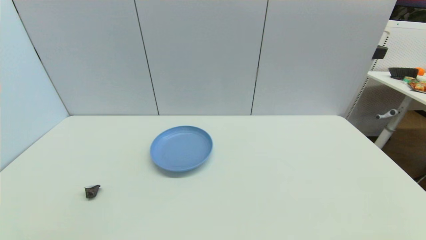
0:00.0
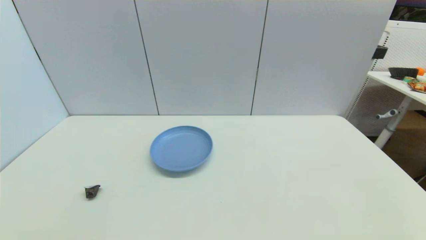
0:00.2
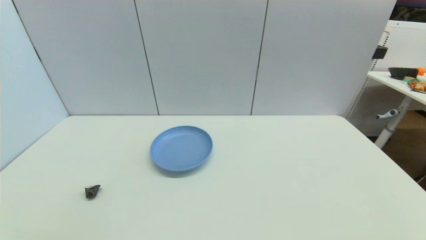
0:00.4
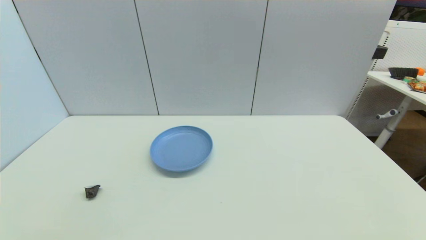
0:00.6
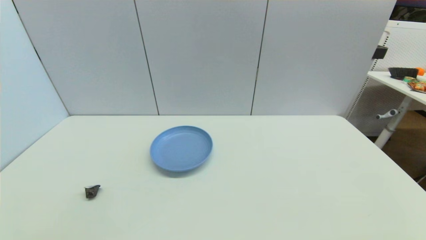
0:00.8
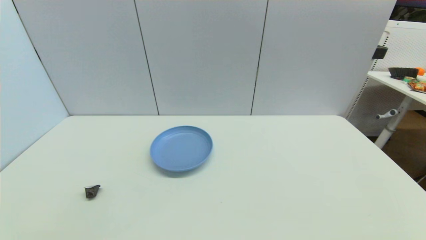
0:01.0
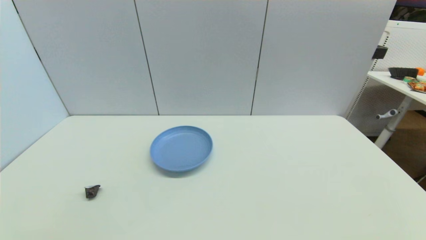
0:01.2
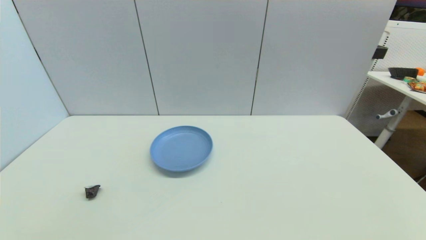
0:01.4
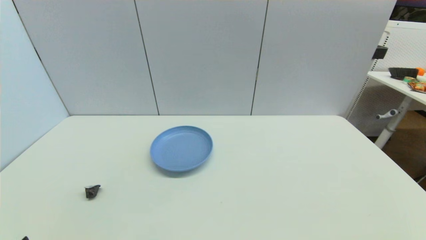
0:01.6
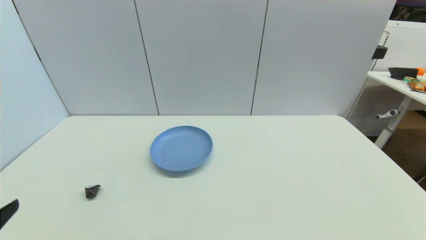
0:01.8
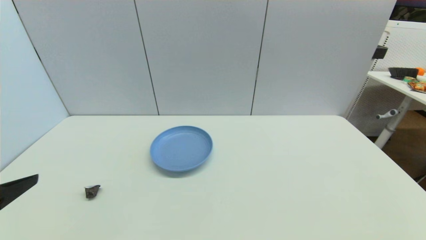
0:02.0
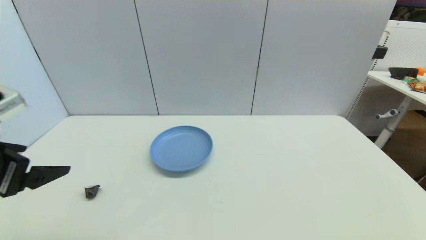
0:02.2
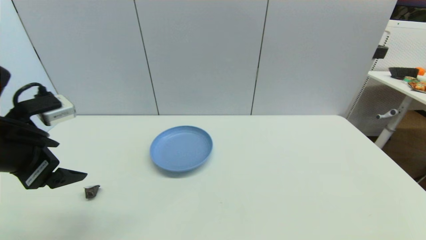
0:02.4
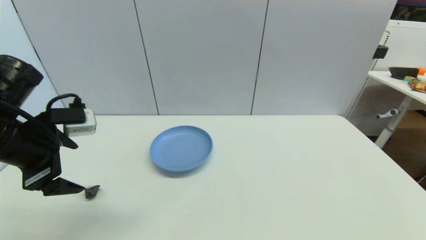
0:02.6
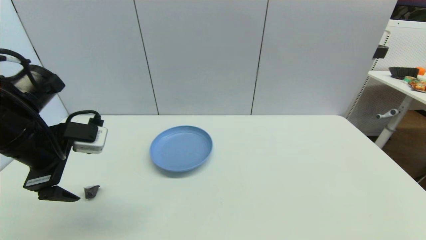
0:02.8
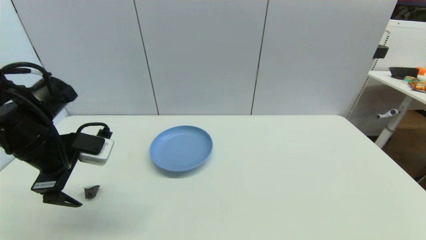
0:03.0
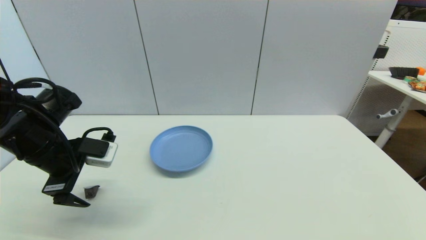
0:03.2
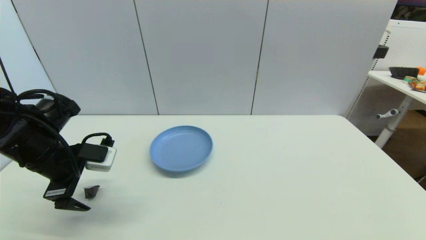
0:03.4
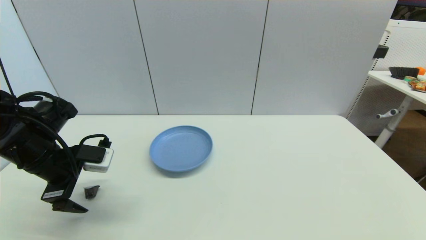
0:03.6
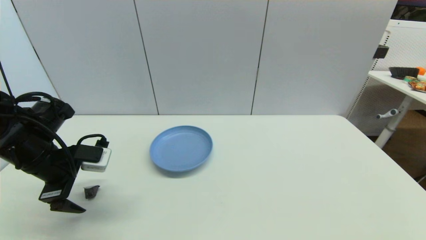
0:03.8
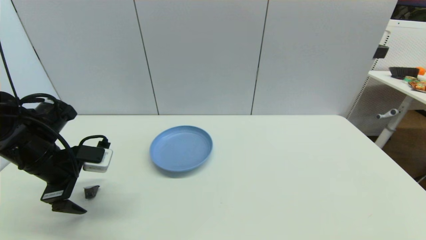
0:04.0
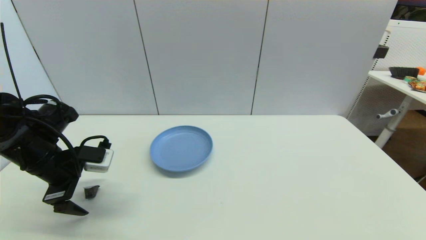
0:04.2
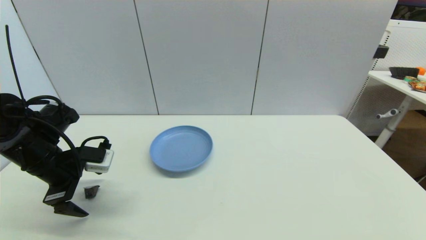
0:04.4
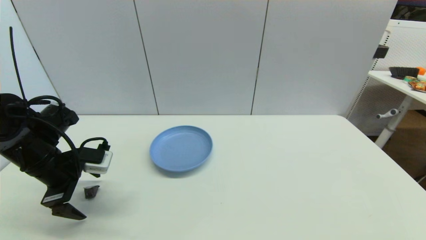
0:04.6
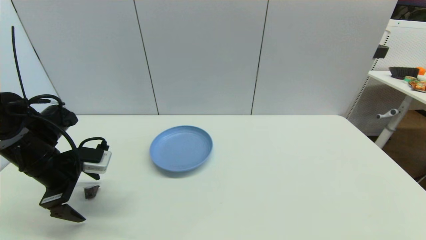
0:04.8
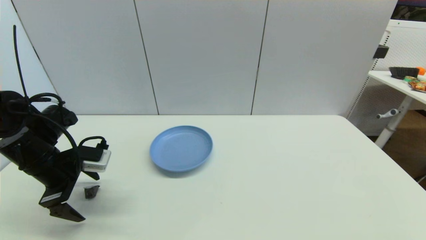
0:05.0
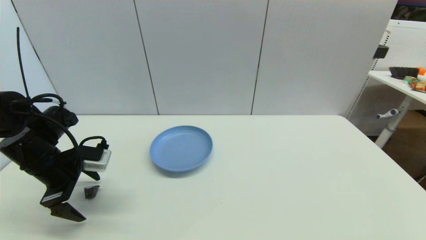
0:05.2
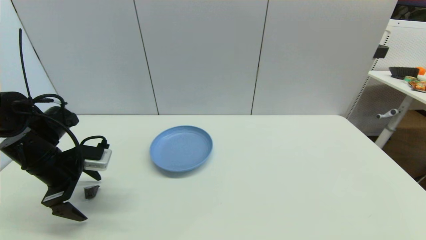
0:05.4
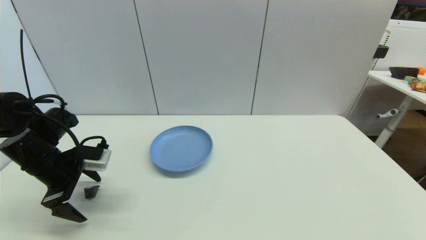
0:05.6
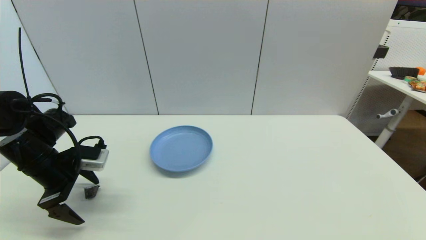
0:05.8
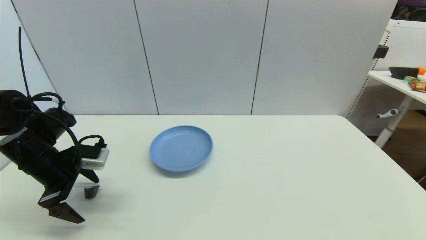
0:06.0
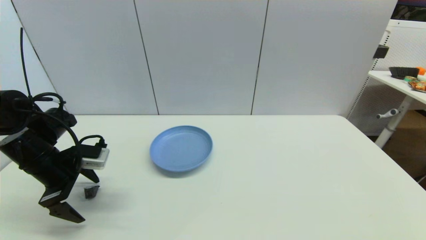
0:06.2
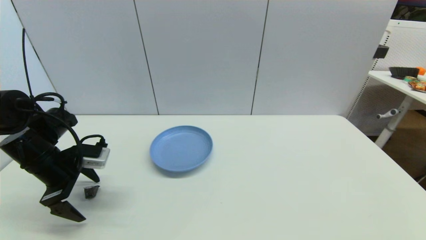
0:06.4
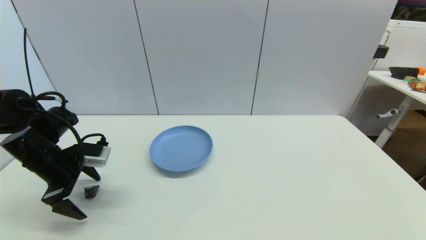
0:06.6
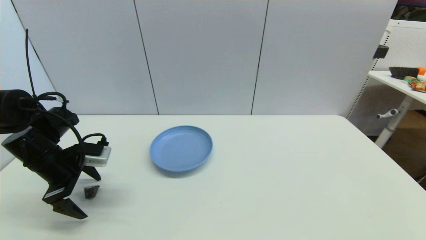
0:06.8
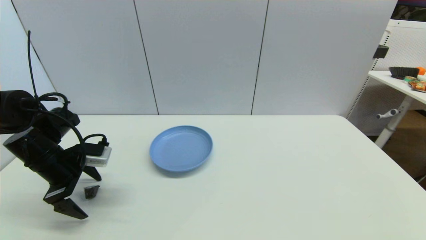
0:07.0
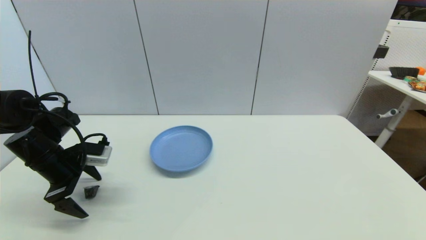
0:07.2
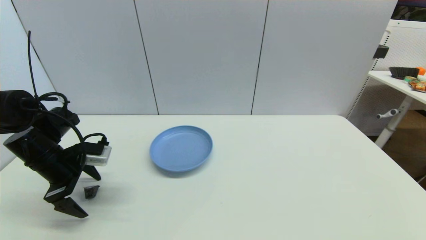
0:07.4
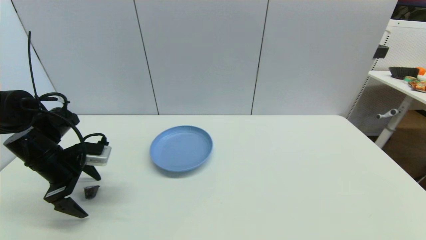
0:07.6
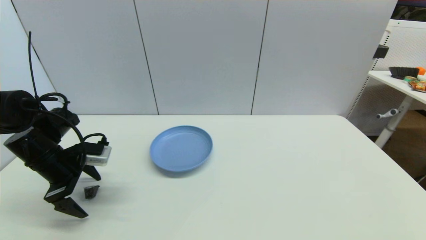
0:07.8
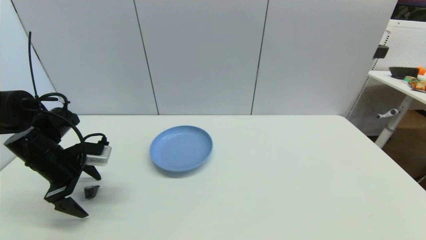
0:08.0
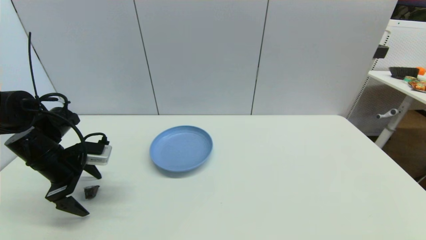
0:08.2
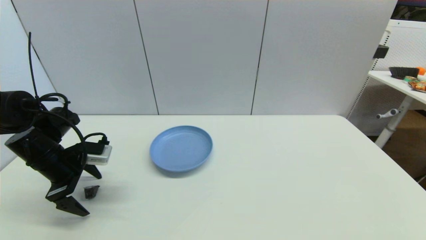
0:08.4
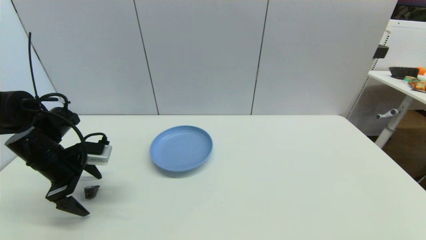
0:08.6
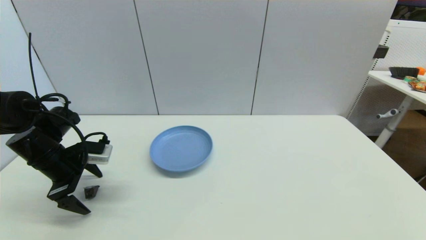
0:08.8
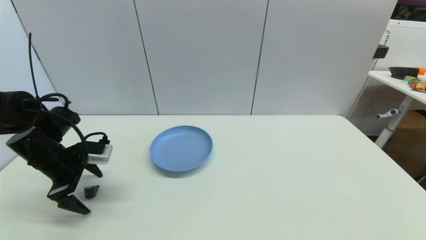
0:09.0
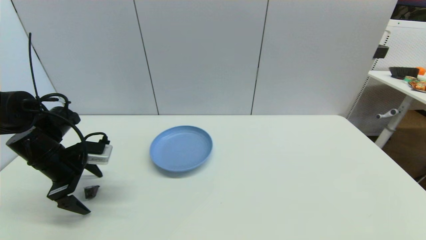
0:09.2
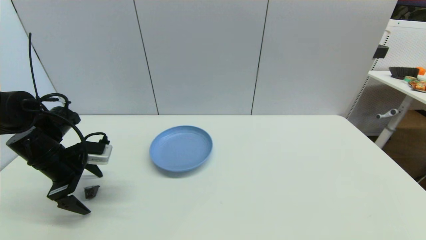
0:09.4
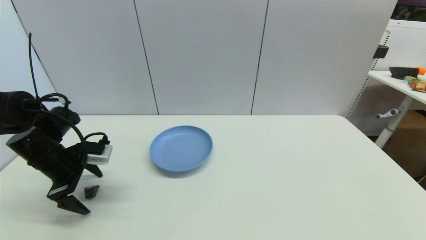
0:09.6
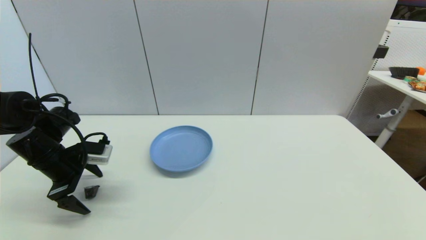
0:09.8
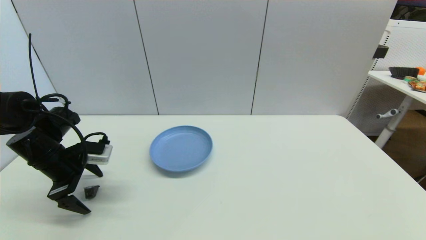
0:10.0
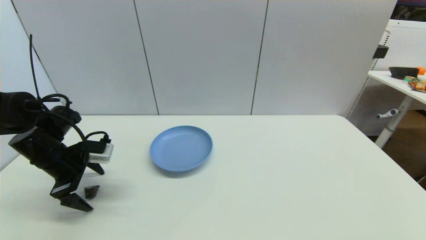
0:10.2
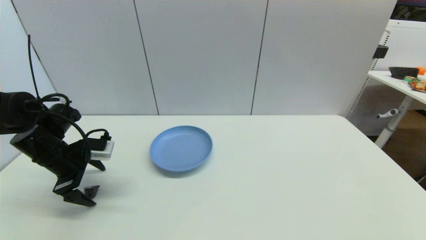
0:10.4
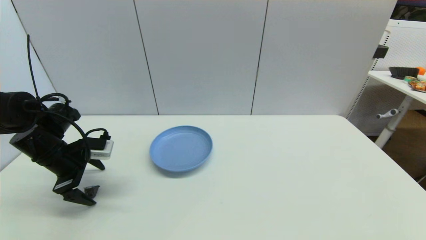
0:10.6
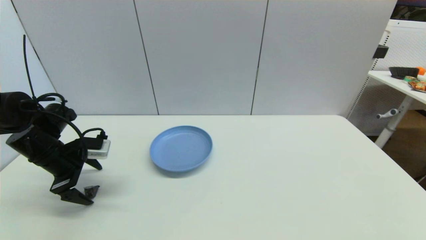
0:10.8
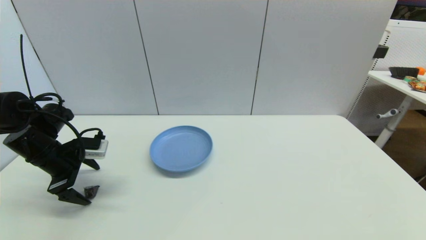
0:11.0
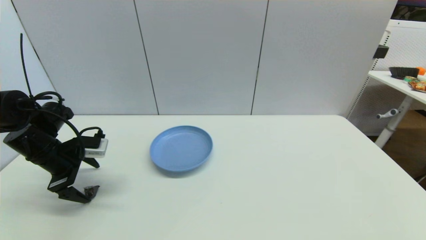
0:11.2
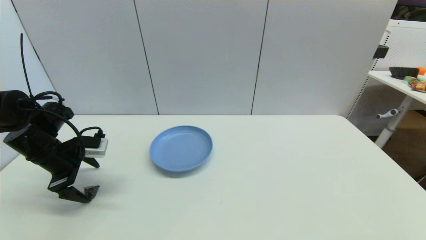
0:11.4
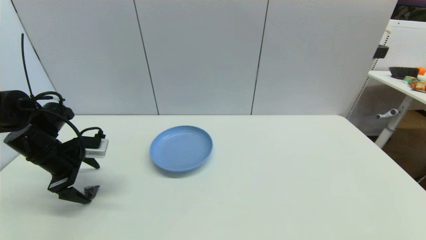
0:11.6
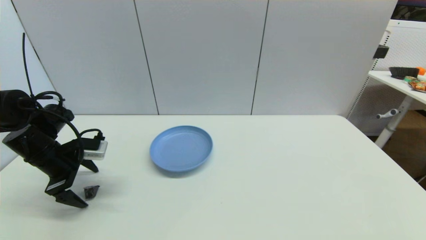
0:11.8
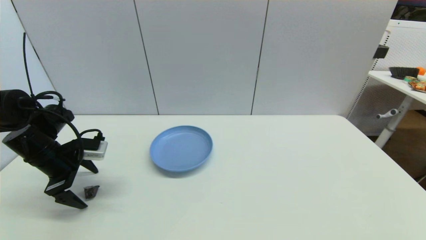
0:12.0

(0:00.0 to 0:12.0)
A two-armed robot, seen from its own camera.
0:01.6 - 0:03.0: The left gripper heads forward, covering some 25 cm.
0:03.0 - 0:04.4: The left gripper is displaced downward by approximately 5 cm.
0:04.4 - 0:07.6: There are only small adjustments of the grippers.
0:07.6 - 0:09.0: The two grippers keep their place.
0:09.0 - 0:10.4: The two grippers keep their place.
0:10.4 - 0:12.0: There are only small adjustments of the grippers.

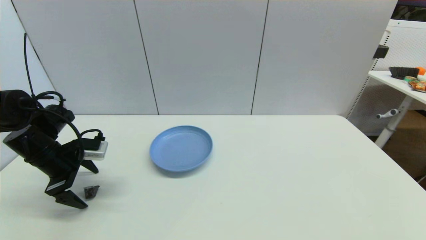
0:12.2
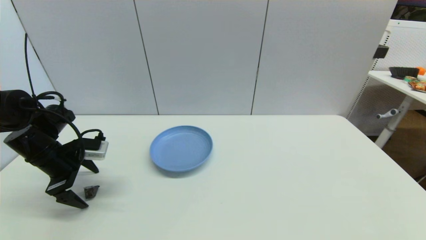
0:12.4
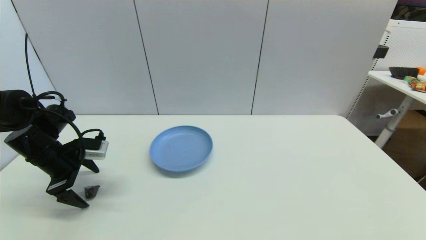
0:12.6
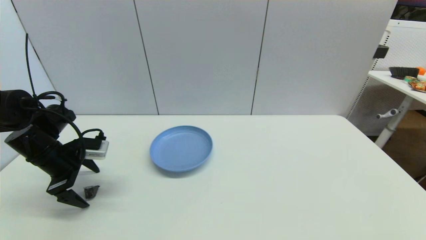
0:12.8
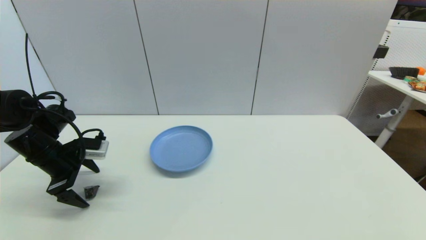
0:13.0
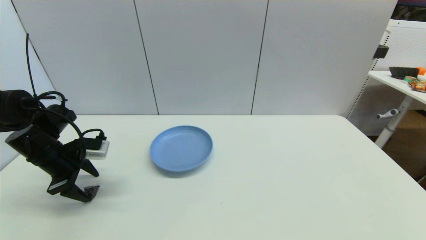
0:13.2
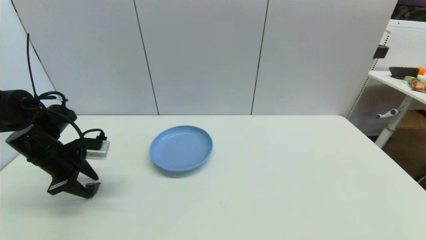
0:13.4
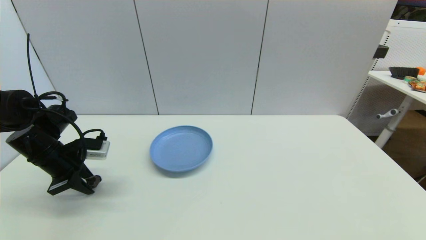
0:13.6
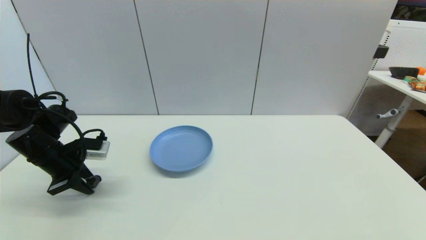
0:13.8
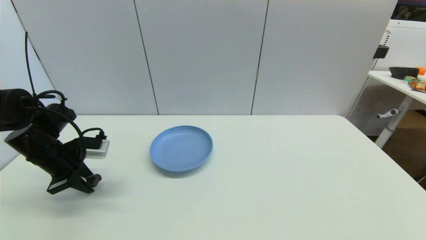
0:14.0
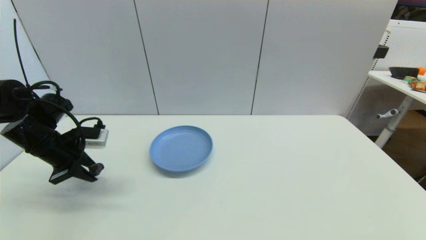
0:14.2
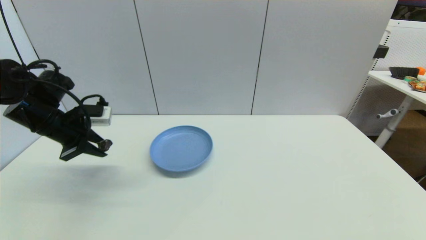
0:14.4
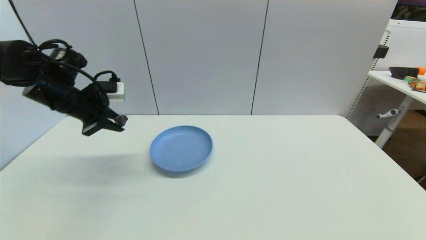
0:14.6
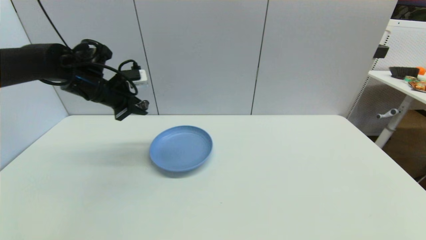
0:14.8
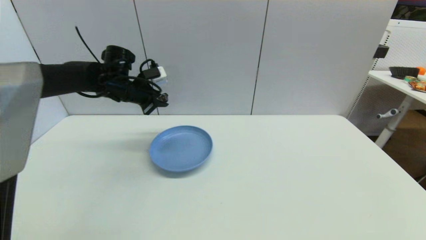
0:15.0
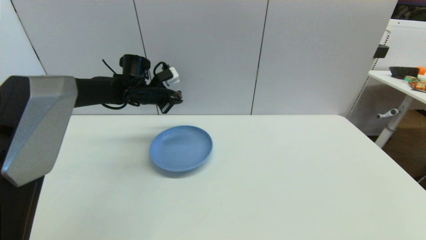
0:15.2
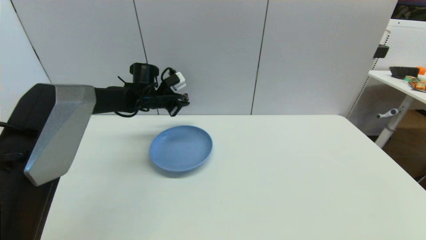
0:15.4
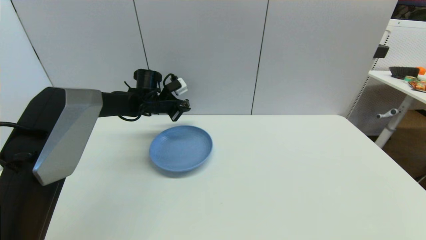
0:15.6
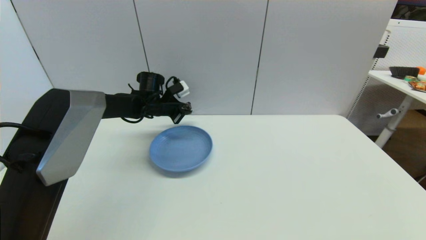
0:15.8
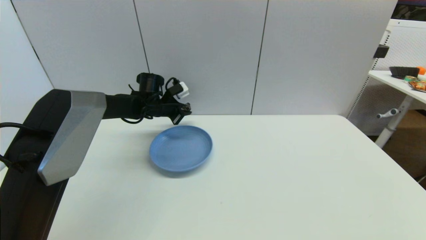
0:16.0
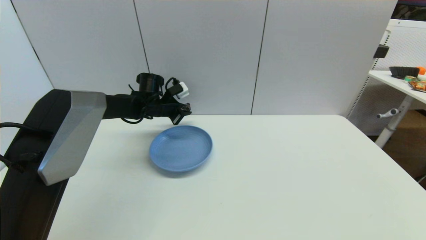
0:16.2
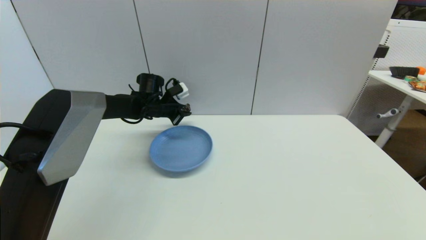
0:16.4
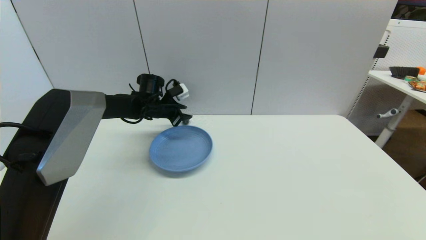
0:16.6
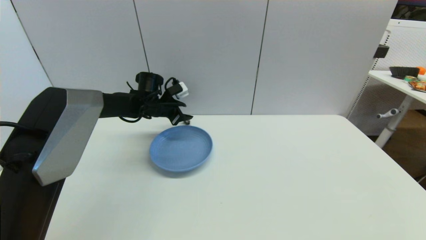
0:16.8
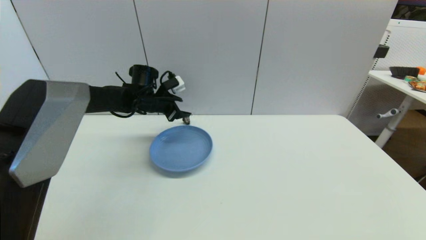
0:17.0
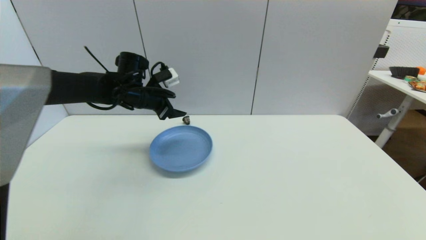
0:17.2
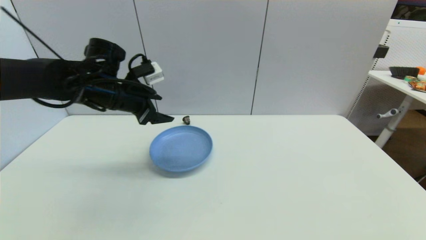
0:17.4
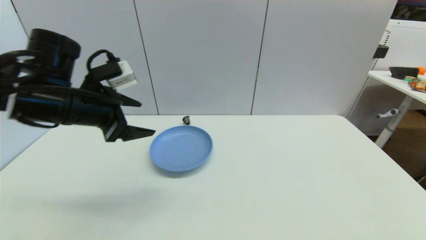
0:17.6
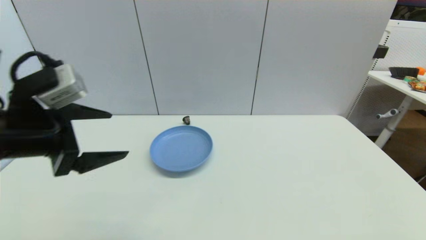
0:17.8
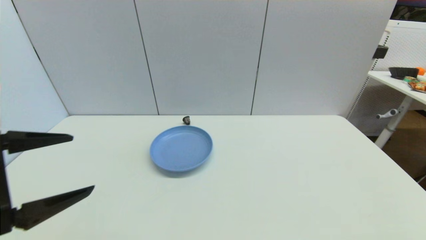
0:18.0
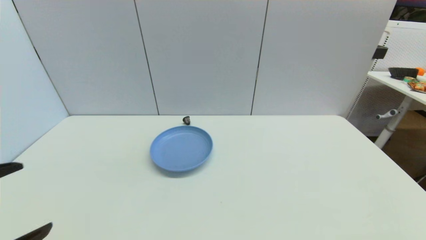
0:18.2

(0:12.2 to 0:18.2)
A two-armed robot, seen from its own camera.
Step, 0:13.8 - 0:16.6: Place the coffee capsule on the table with left gripper.
0:12.2 - 0:13.8: The left gripper closes.
0:13.8 - 0:15.2: The left gripper goes roughly 25 cm forward and to the right.
0:15.2 - 0:16.6: The left gripper goes approximately 5 cm downward.
0:16.6 - 0:18.2: The left gripper shifts some 50 cm backward, and opens up.
